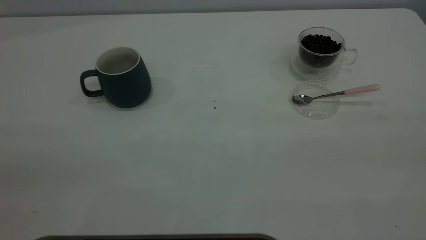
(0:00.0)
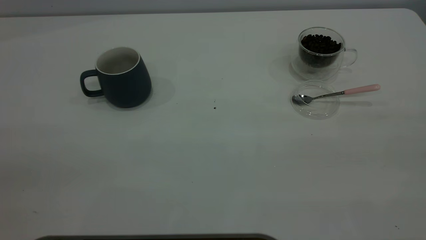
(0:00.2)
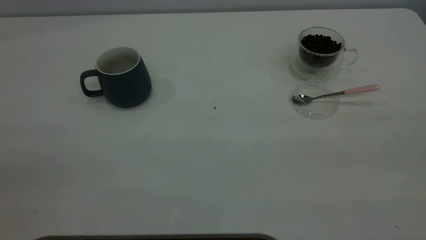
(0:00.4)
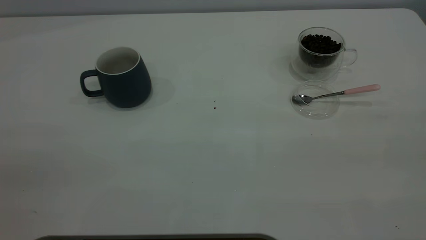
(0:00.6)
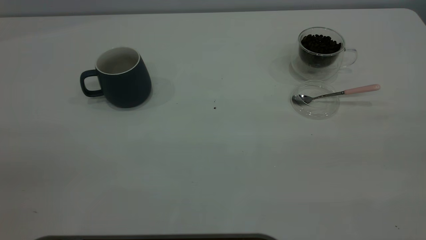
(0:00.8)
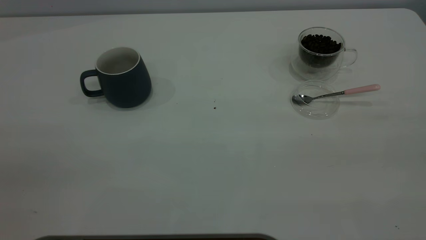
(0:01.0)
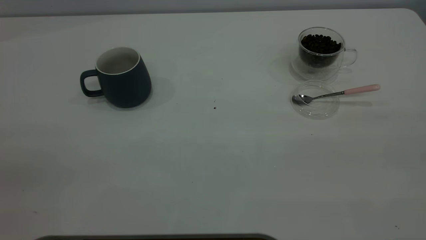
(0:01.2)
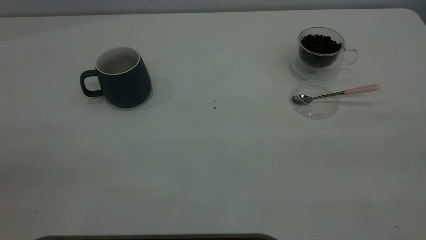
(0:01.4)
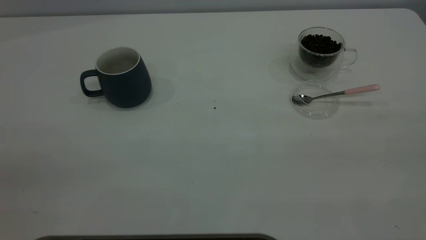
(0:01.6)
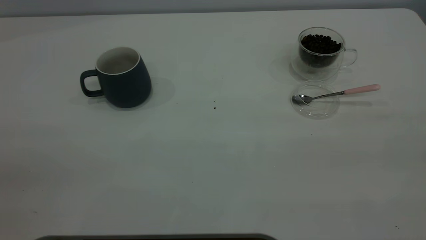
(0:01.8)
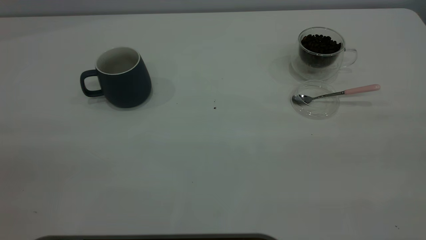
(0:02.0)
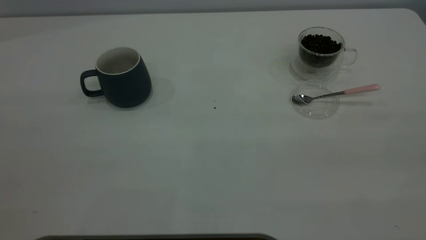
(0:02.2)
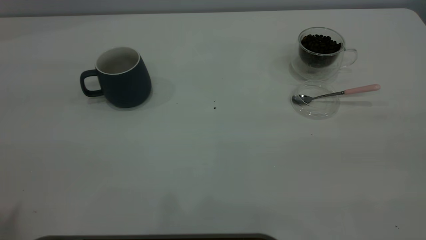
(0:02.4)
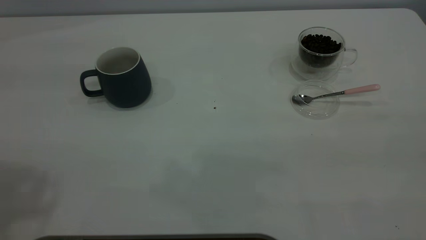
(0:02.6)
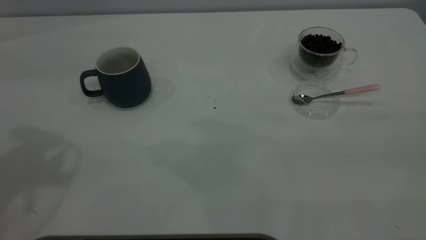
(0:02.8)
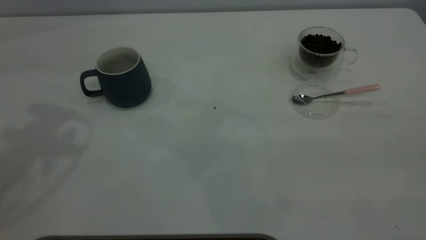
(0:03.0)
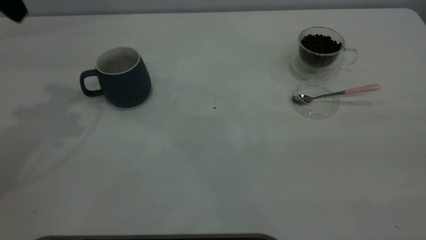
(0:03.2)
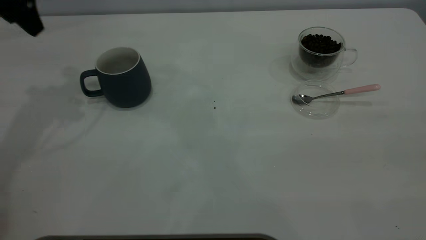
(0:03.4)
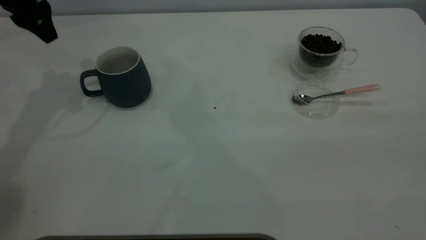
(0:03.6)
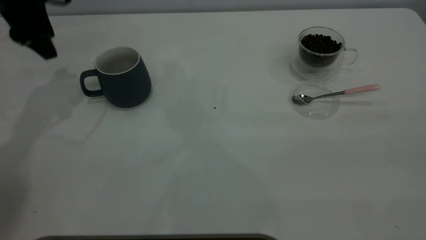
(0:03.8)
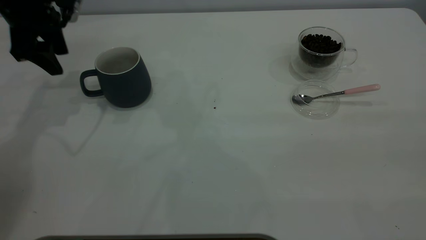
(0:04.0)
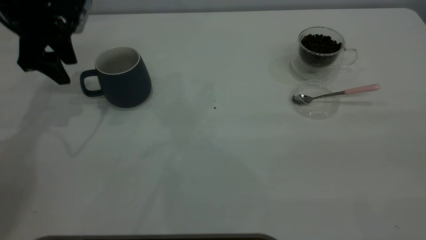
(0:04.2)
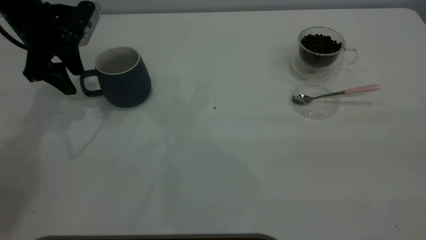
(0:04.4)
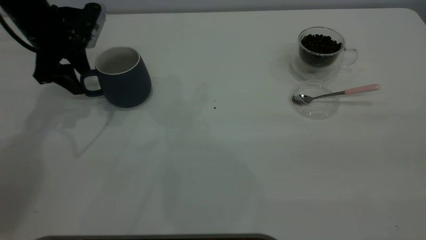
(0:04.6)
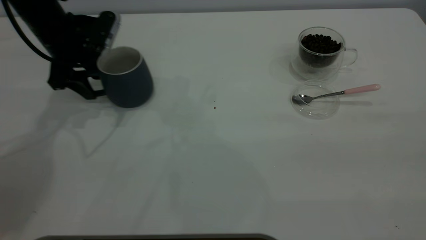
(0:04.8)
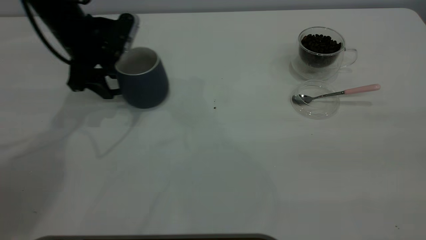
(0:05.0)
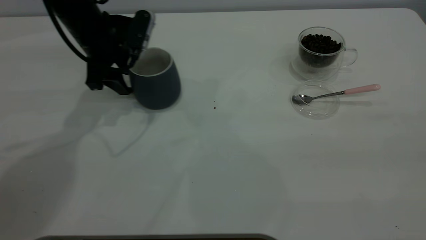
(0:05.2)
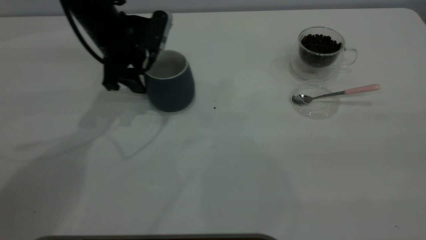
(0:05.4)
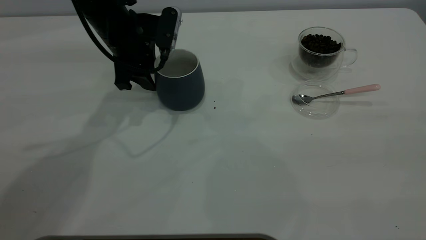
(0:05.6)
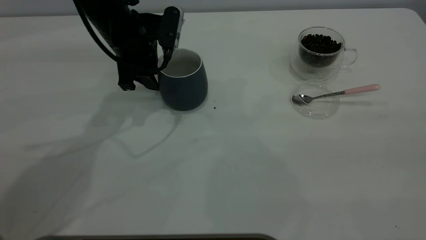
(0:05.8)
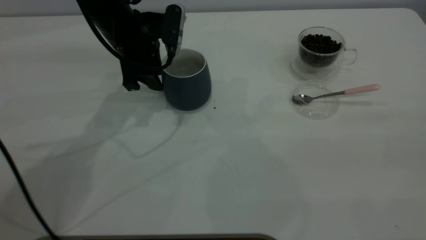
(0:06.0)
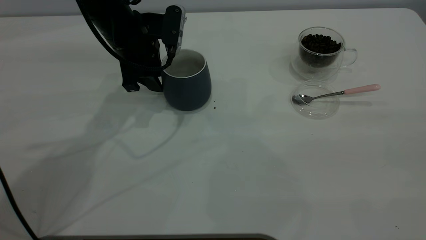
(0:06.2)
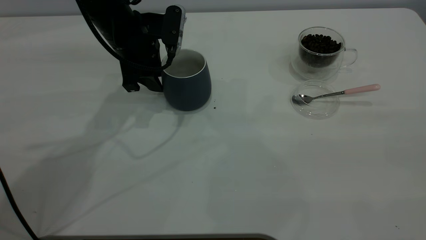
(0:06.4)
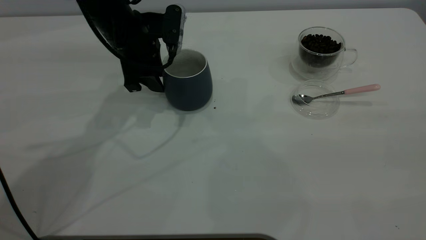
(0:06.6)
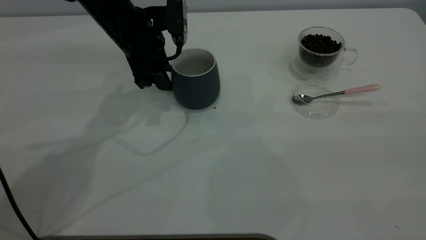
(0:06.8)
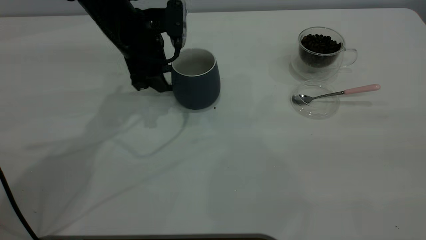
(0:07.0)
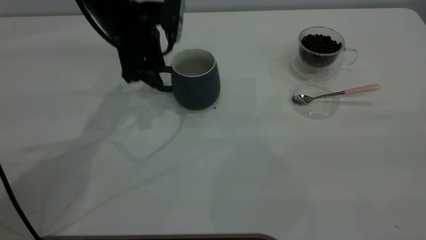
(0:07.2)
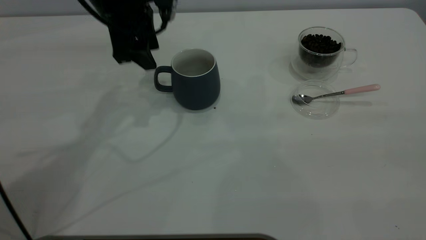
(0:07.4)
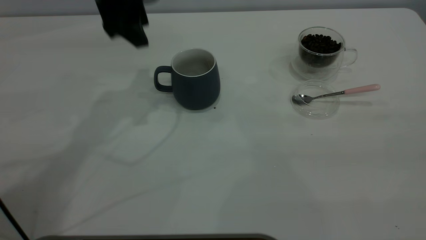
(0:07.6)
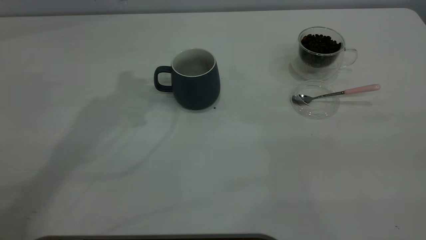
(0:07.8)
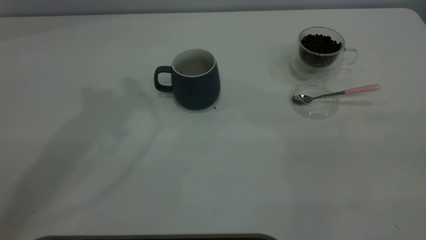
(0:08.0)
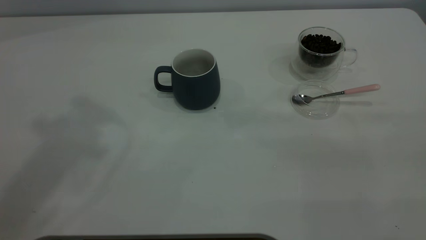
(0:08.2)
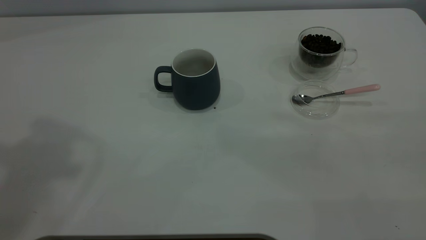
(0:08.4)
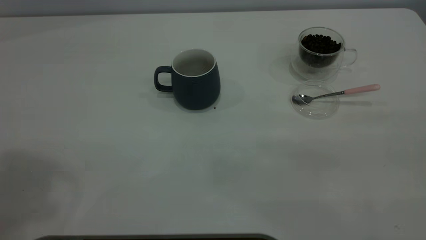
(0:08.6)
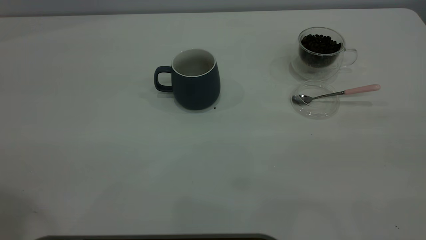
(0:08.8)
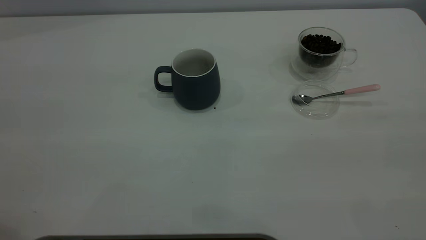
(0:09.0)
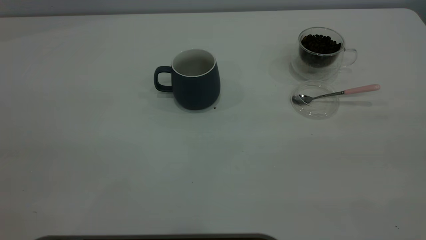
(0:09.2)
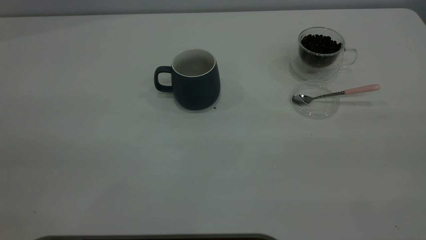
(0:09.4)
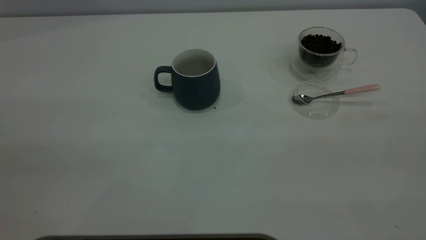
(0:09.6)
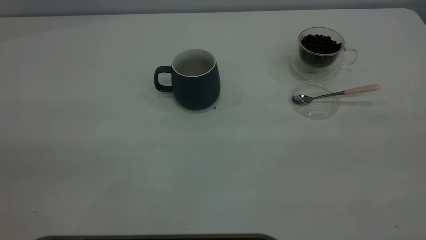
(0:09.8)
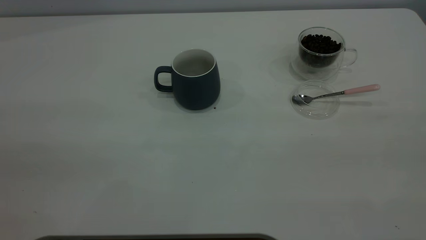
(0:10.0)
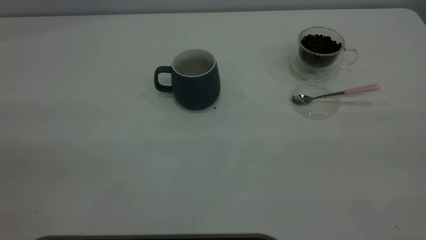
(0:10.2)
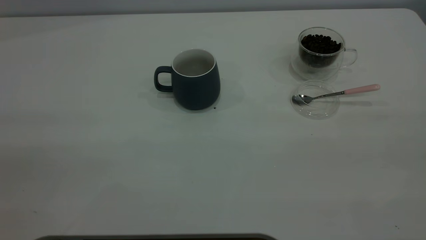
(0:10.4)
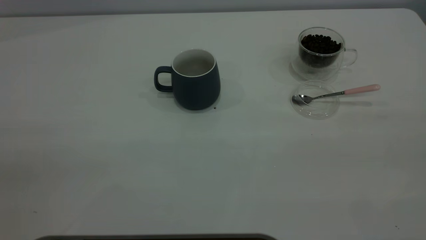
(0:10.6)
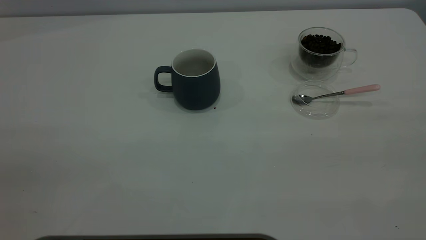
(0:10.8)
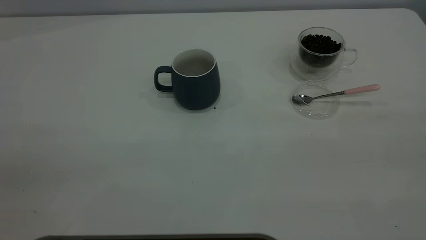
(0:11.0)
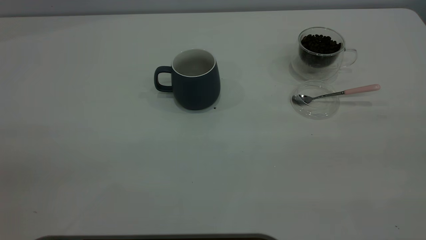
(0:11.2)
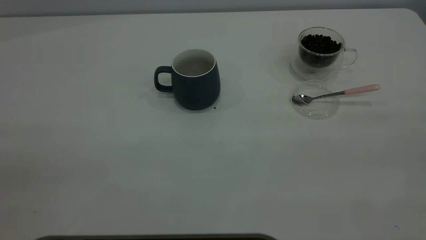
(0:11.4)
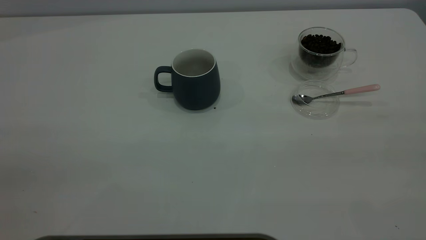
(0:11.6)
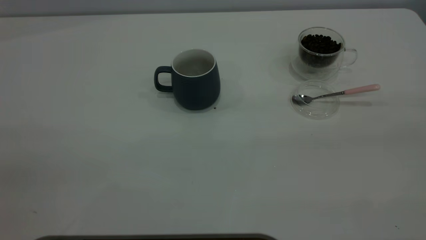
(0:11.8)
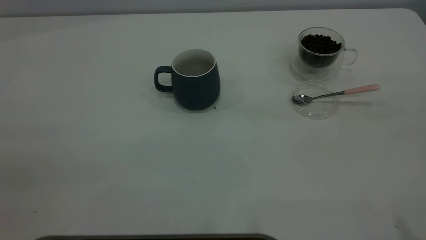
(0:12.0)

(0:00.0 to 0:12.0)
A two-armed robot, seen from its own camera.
Task of the whole recording: the left gripper place the grey cup in the center of the table, the right gripper take the pink spoon from the cup lid and scoop out the coffee beans from the coffee cup and put them into the grey cup, the right gripper put the spoon back into the cup lid.
Step, 0:00.0 - 0:07.4: Move the cup to the center of view.
0:00.0 - 0:01.6: Both grippers stay put.
0:03.0 - 0:04.4: The left gripper is displaced downward and forward by some 25 cm.
0:04.4 - 0:06.0: The left gripper goes about 15 cm to the right, and closes up.
0:06.0 - 0:07.6: The left gripper shifts some 10 cm upward, and opens.
0:07.6 - 0:09.0: The left gripper shifts approximately 40 cm backward, upward and to the left.

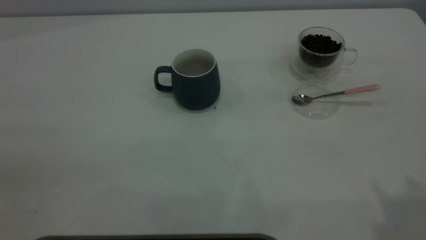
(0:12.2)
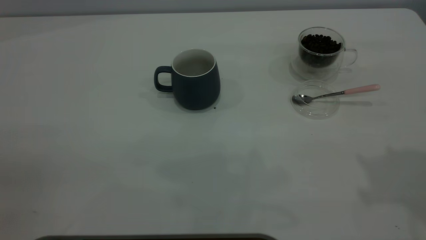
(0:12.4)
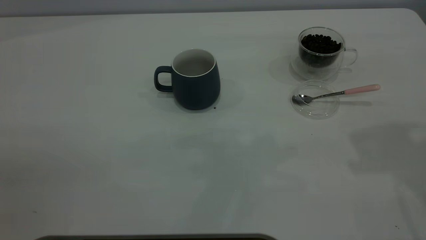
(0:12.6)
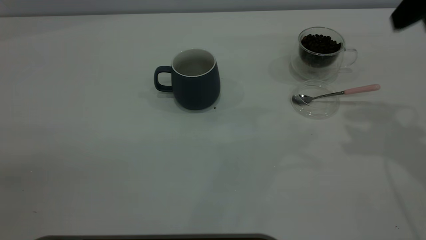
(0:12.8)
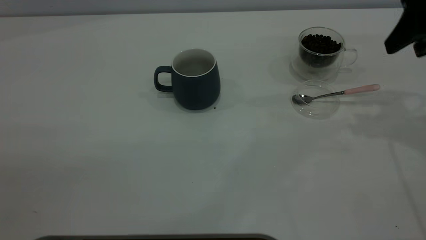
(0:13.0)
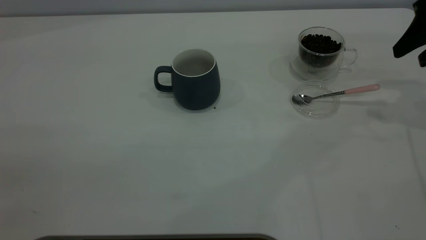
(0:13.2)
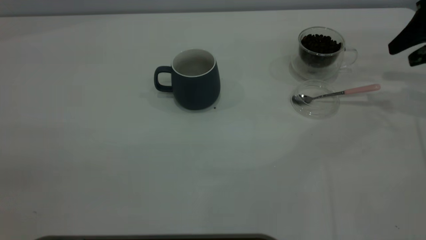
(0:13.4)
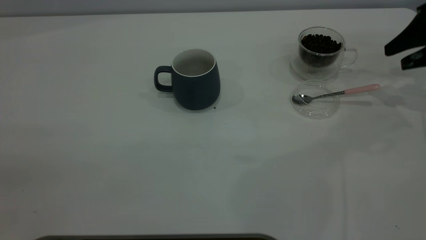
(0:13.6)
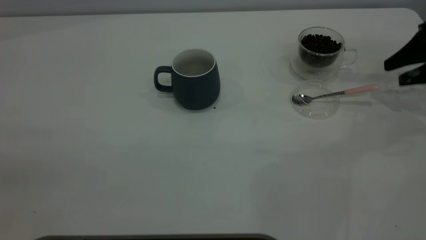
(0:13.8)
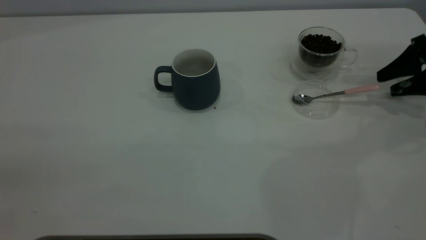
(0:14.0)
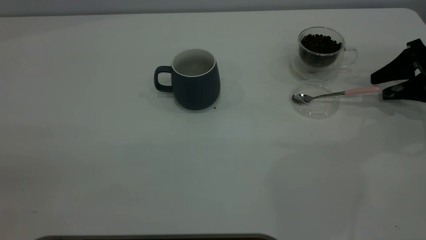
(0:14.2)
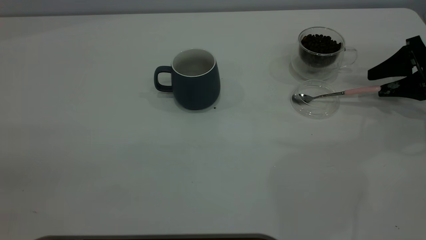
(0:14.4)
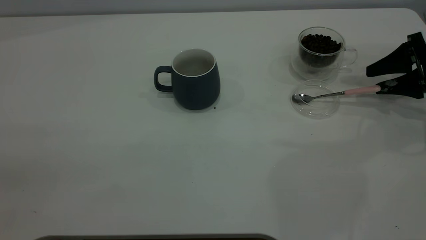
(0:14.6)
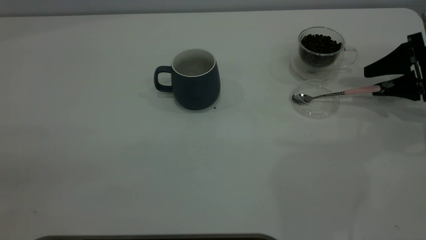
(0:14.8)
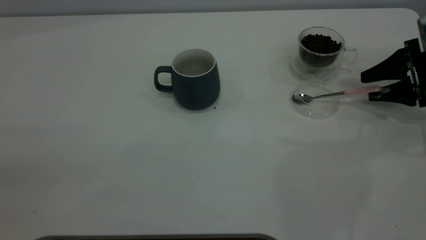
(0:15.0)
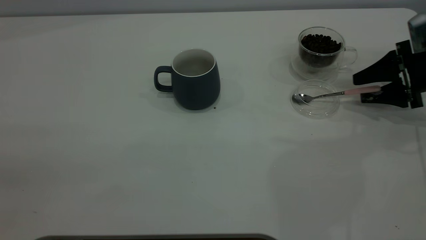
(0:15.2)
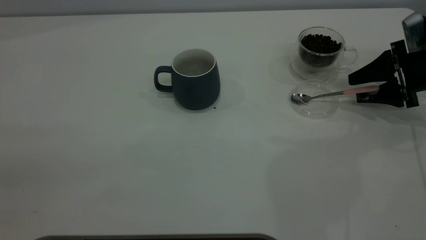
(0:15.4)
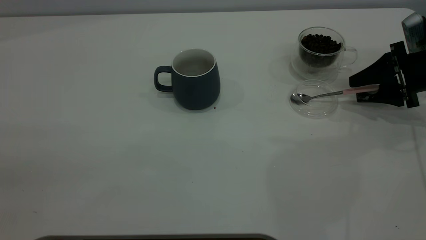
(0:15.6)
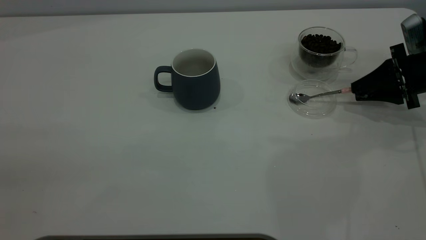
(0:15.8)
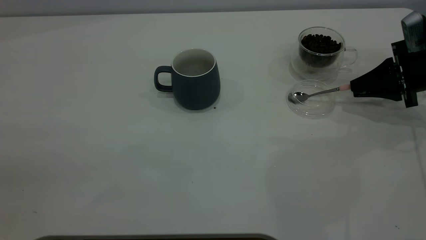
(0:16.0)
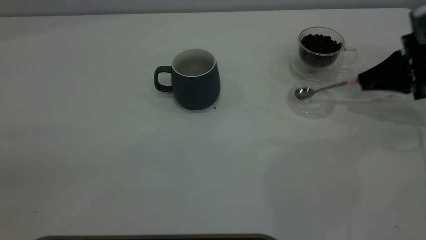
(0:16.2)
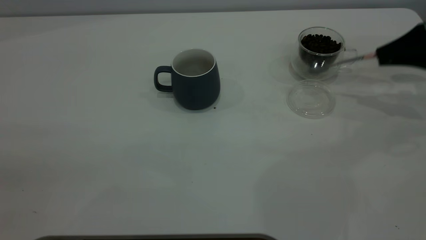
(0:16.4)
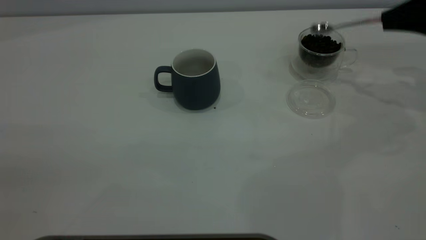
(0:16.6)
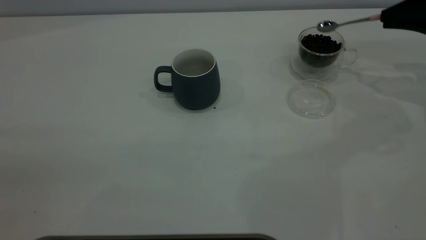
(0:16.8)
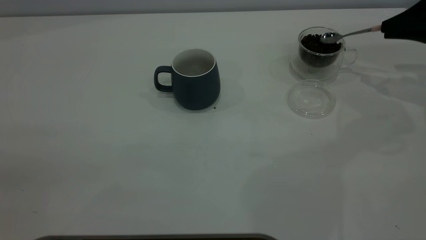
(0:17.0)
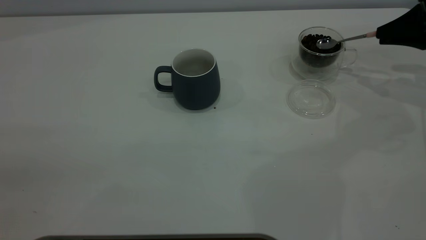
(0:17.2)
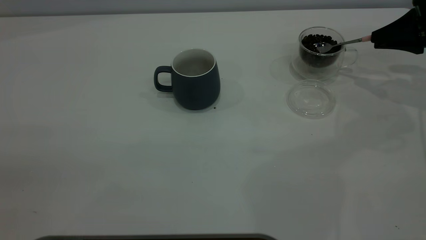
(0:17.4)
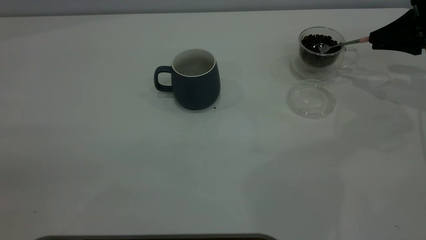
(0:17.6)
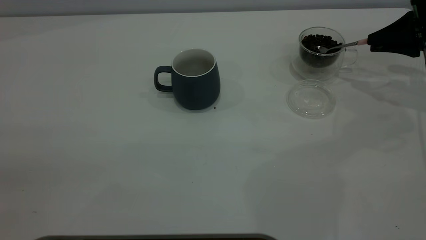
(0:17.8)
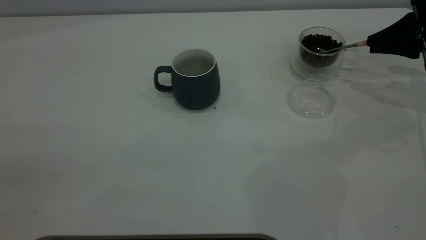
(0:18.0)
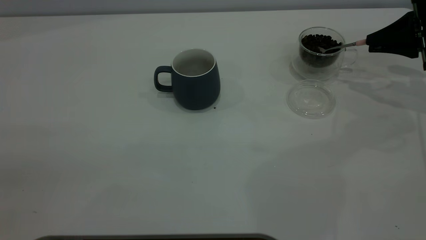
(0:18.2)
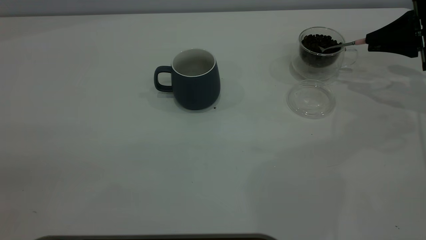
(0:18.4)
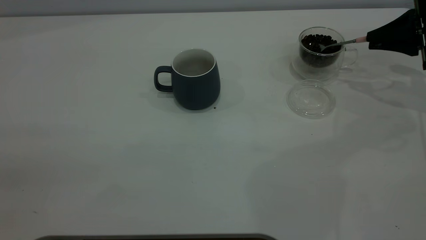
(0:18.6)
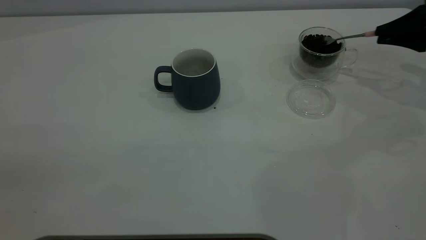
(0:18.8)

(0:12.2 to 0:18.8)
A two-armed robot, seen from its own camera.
Task of the whole recording: the left gripper place the grey cup in the center of the table, the right gripper take the pink spoon from the cup lid and scoop out the coffee beans from the coffee cup and put them into the grey cup, the right gripper put the spoon back into the cup lid.
Step, 0:12.2 - 0:16.2: Pick up the spoon.
0:12.2 - 0:13.8: The right gripper is displaced downward, forward and to the right by some 40 cm.
0:13.8 - 0:15.4: The right gripper shifts by roughly 5 cm.
0:15.4 - 0:17.2: The right gripper shifts roughly 5 cm upward, and closes.
